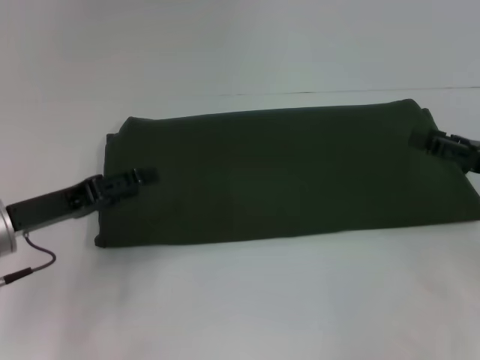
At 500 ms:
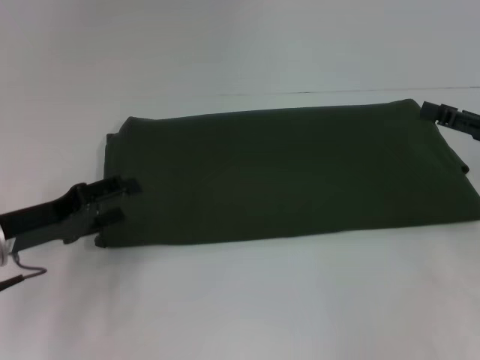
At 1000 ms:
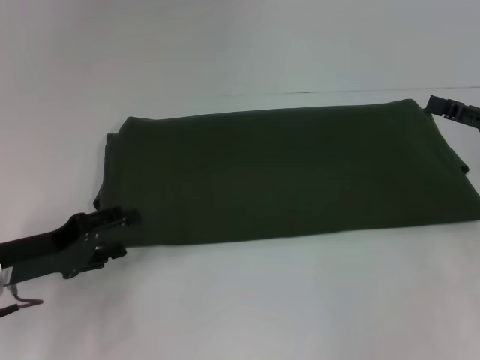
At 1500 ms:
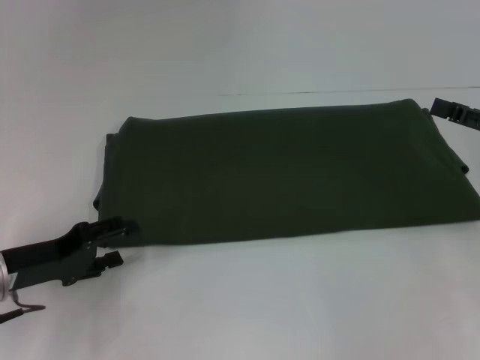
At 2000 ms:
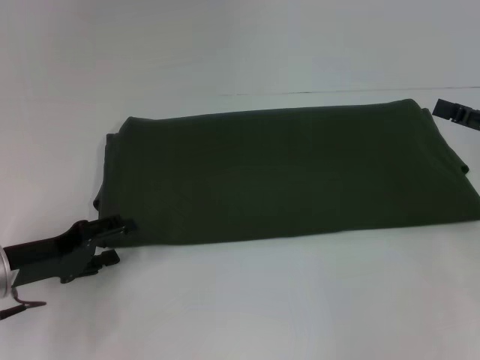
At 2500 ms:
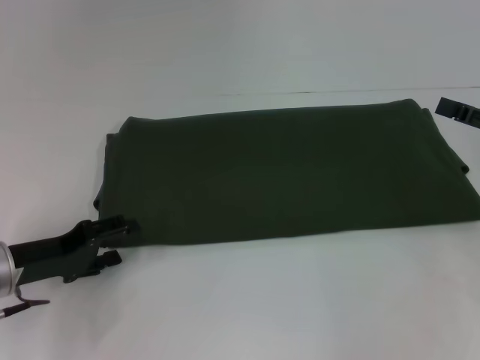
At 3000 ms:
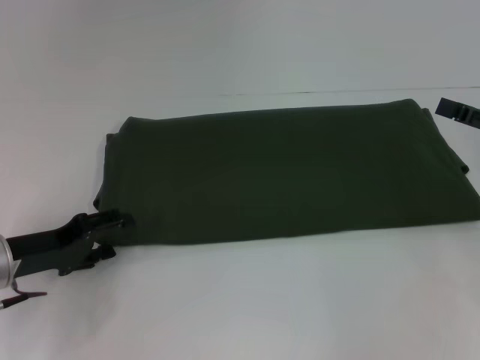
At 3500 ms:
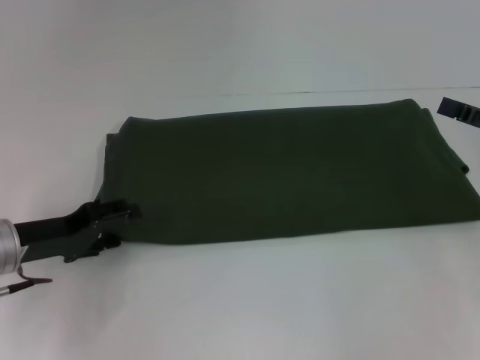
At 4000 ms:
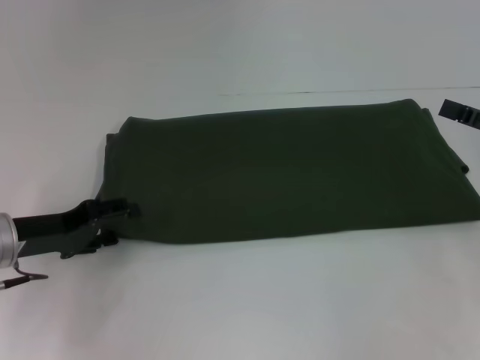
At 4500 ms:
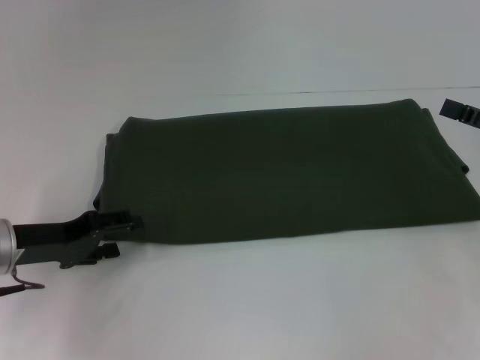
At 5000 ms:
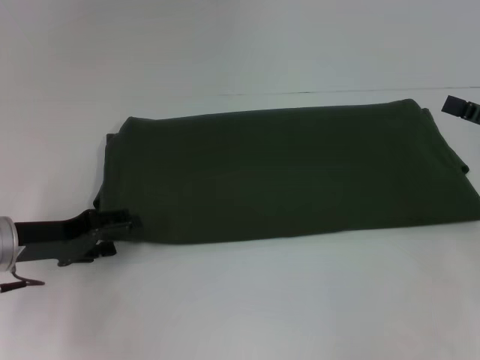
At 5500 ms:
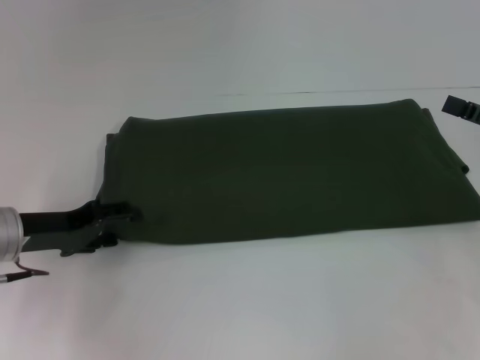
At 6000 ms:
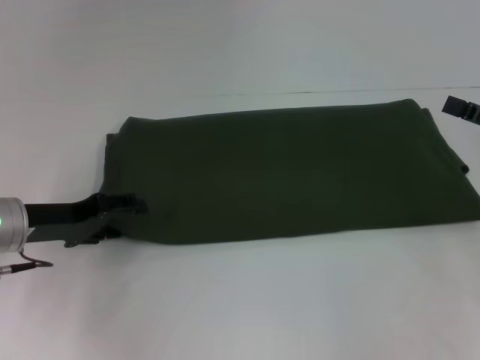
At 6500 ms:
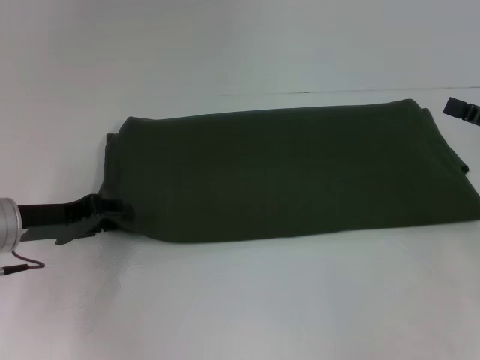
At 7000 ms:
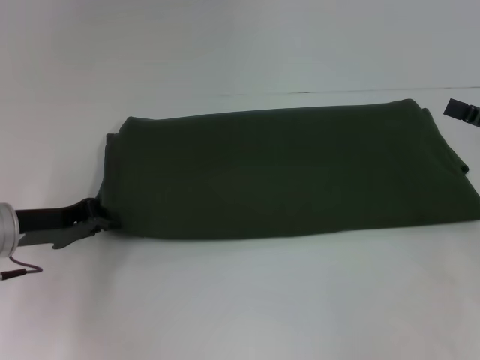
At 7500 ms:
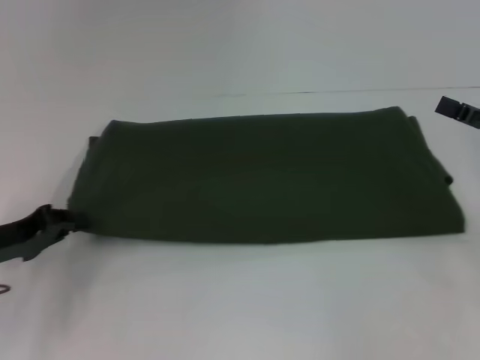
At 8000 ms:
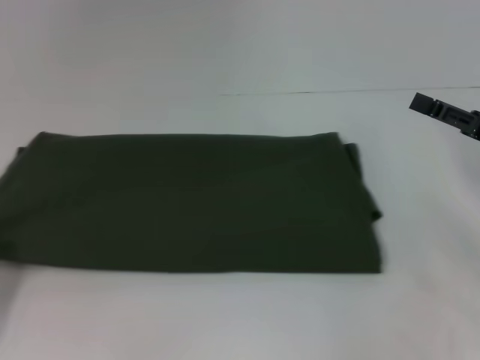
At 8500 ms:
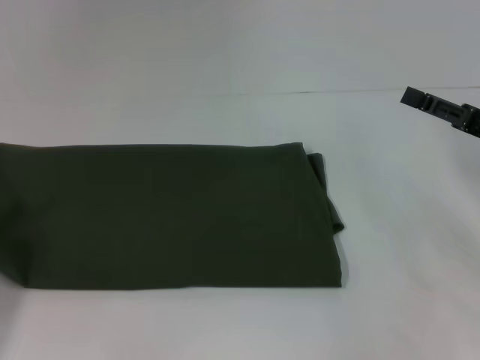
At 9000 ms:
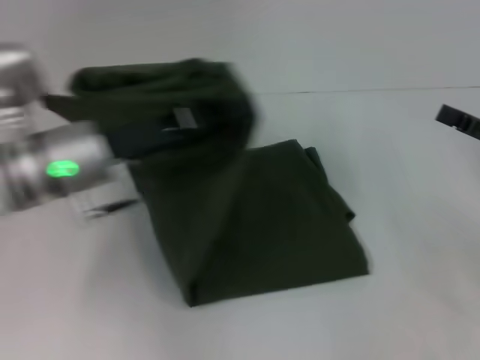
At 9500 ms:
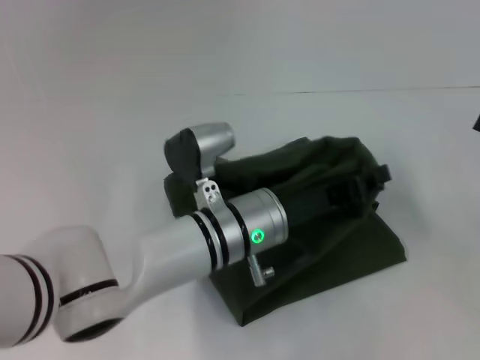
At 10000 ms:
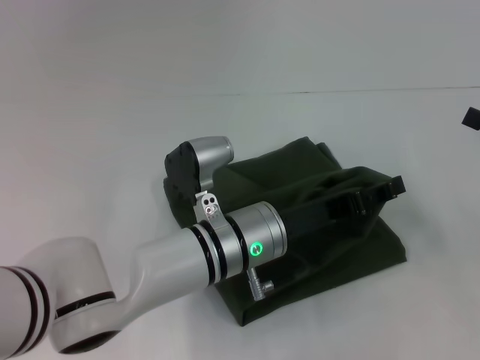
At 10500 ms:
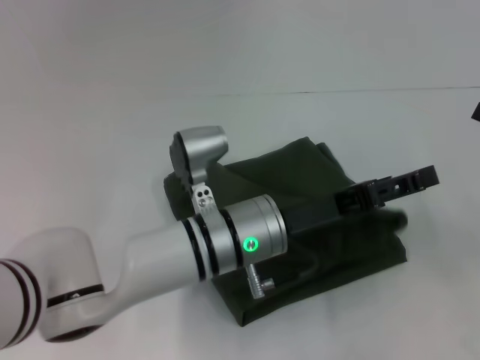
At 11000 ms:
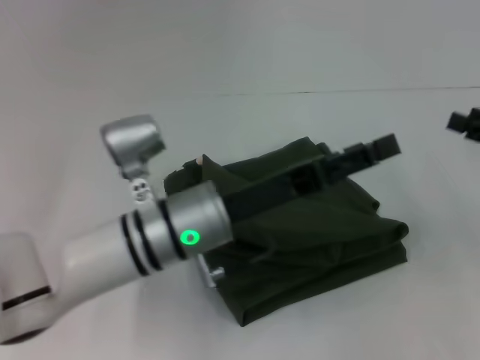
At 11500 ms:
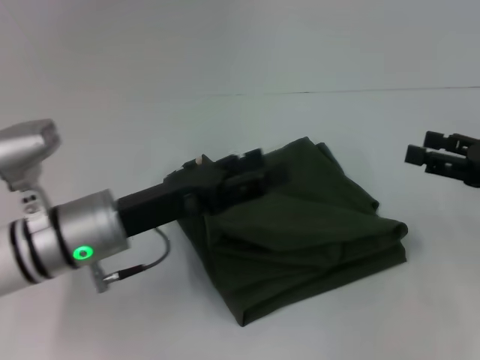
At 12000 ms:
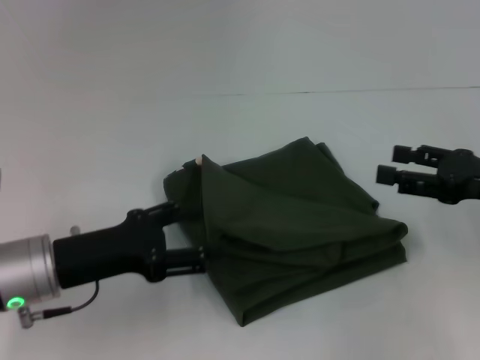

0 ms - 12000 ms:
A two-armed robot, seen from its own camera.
Step, 0 ms - 10500 ms: Fold the clothes with your left hand.
2000 ms - 6000 ms: The grippers make only small movements.
6000 ms - 8000 ms: The left gripper travels to the left and backward by roughly 15 cm, and closes up.
8000 ms - 10000 ms: The left gripper moves to the right, about 35 cm, and opens its fingers. Meanwhile the right gripper moves approximately 5 cm.
10000 ms - 12000 ms: The right gripper goes about 5 cm to the left; the left gripper is displaced to the left by approximately 20 cm, and opens up.

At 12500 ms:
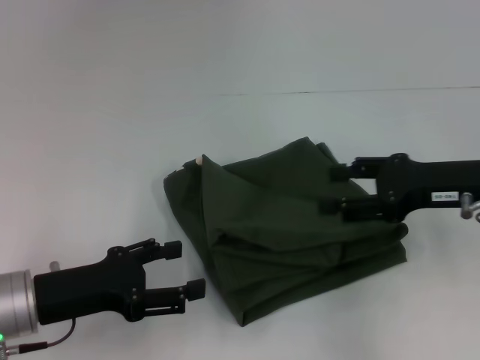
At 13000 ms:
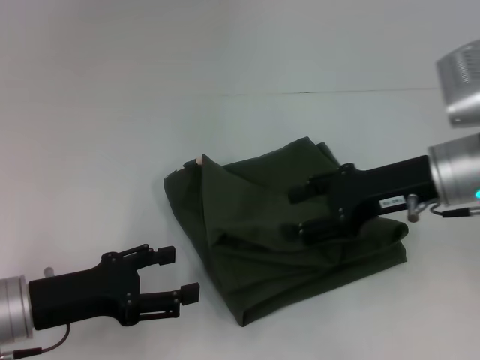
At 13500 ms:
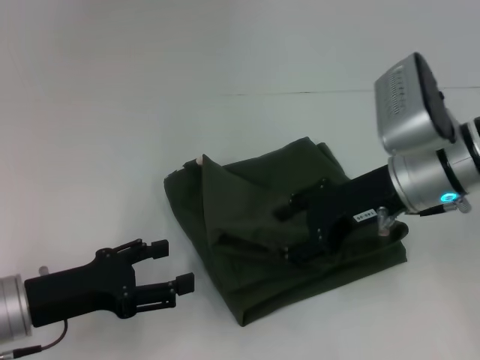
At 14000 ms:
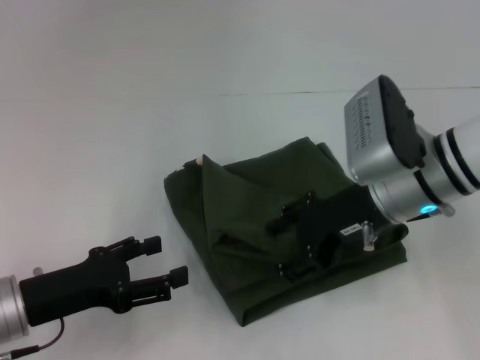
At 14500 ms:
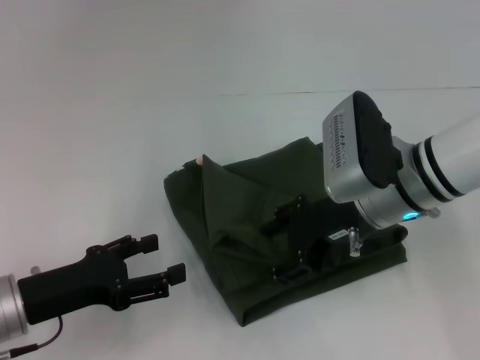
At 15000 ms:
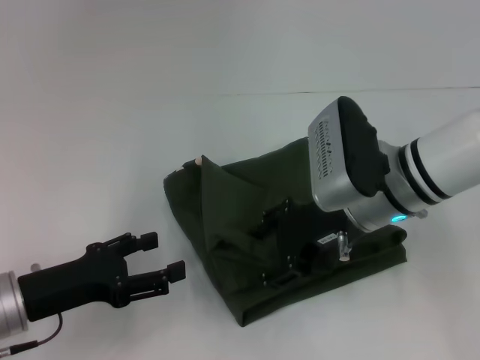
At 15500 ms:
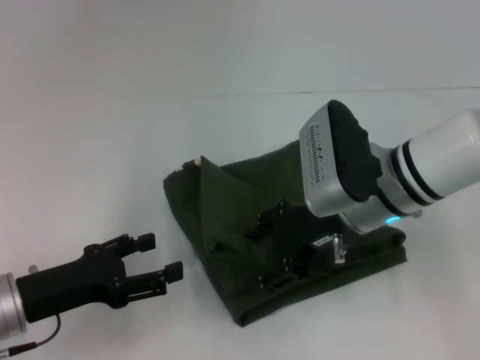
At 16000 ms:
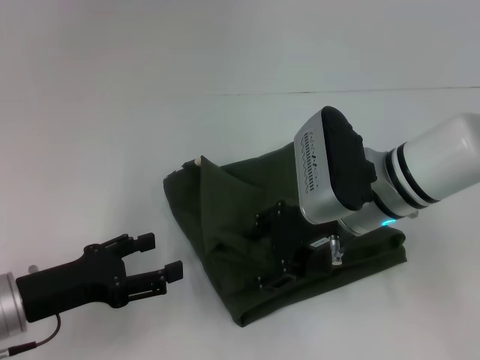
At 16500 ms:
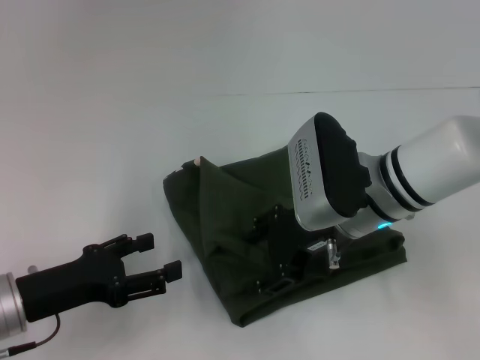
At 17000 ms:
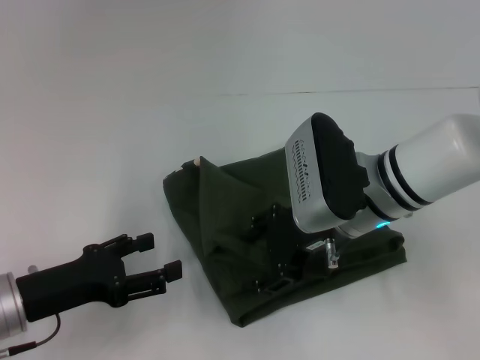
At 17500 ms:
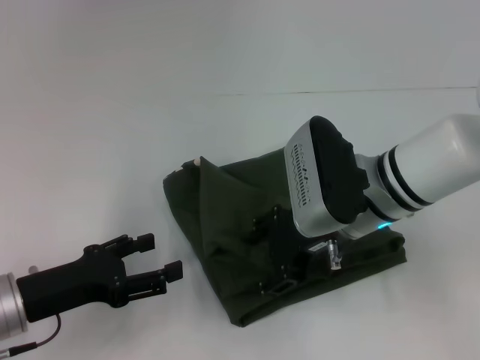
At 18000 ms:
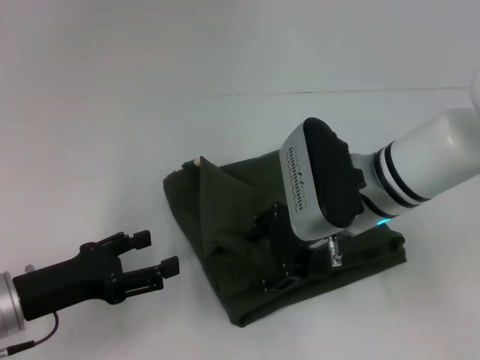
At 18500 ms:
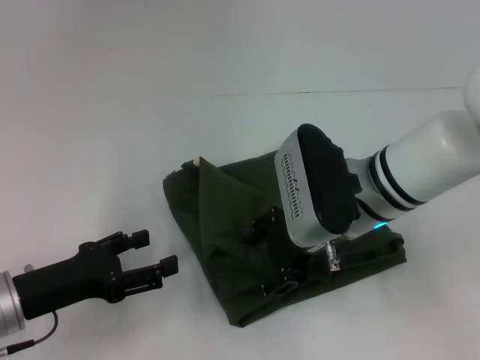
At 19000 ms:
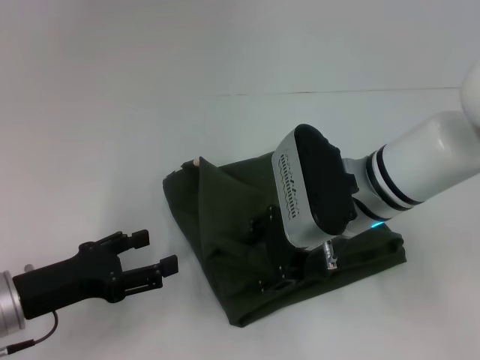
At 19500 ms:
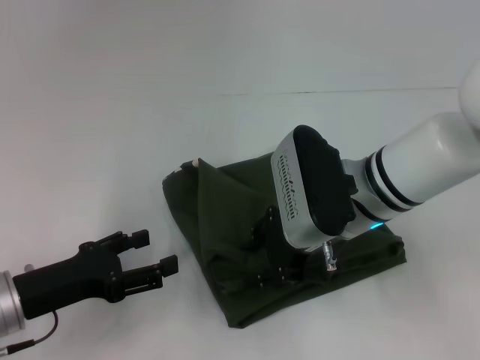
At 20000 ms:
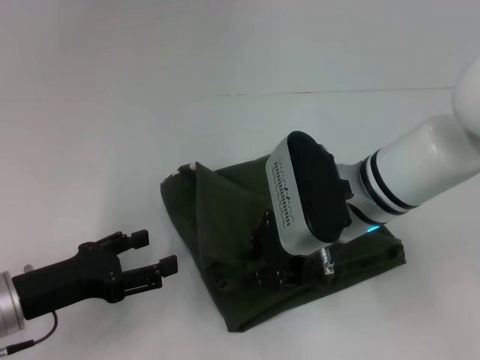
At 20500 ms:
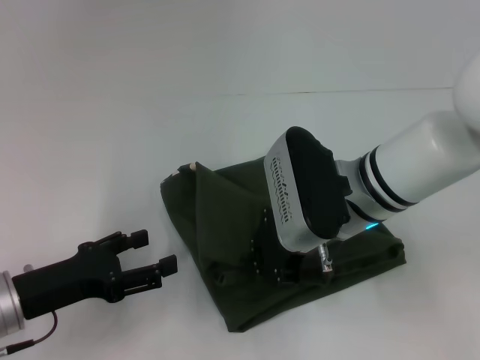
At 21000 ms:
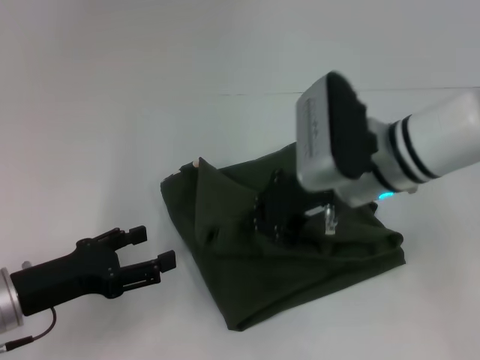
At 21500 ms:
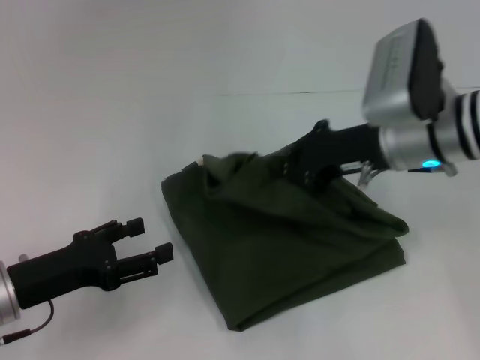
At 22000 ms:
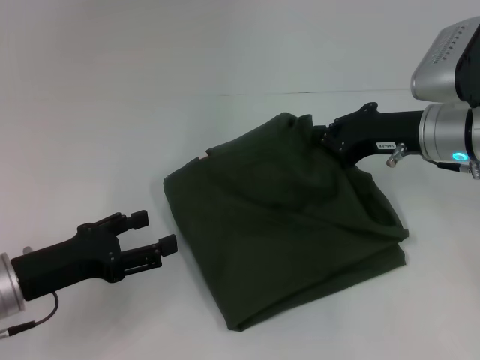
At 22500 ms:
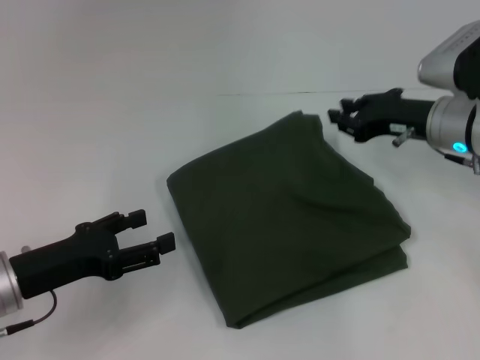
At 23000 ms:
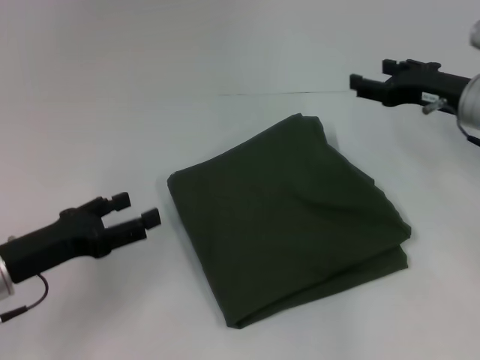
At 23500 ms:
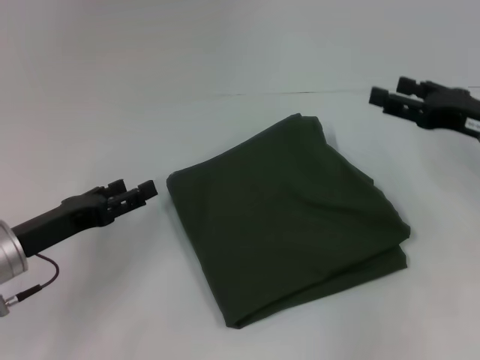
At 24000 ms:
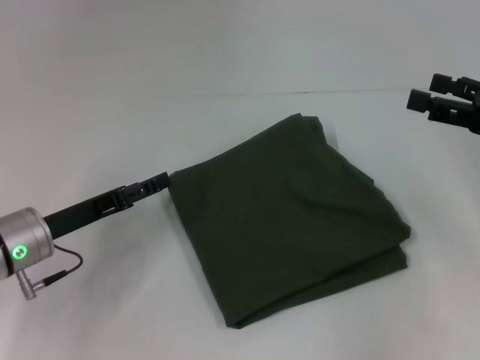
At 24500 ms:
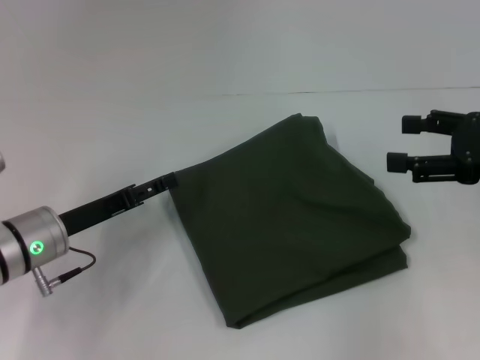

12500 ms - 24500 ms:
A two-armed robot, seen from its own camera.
12500 ms - 14500 ms: The right gripper shifts roughly 10 cm to the left.
14500 ms - 18500 ms: There are only small adjustments of the grippers.
18500 ms - 20500 ms: The right gripper closes up.
20500 ms - 22500 ms: The right gripper is displaced to the right and forward by about 15 cm.
22500 ms - 24500 ms: The left gripper heads forward, covering about 5 cm. The right gripper is displaced to the right and backward by roughly 10 cm, and opens its fingers.

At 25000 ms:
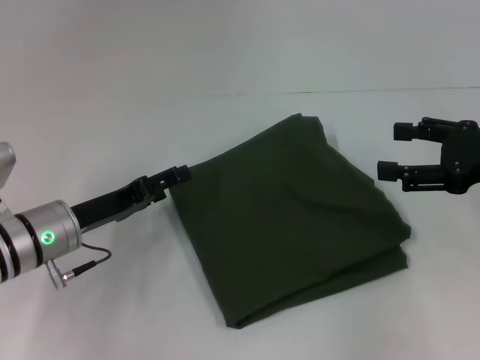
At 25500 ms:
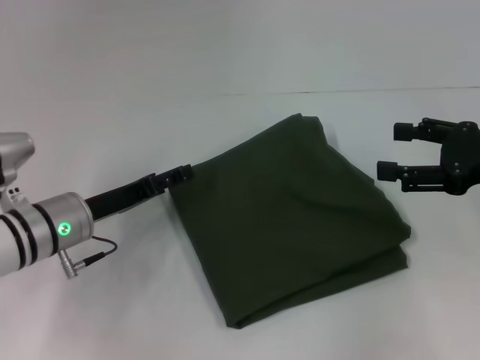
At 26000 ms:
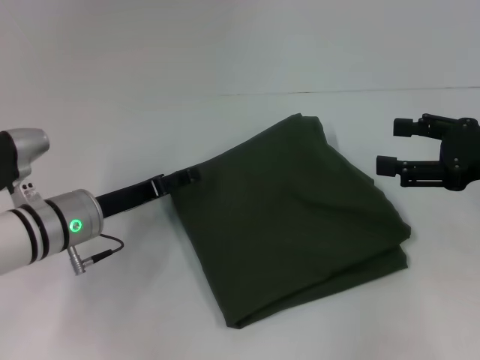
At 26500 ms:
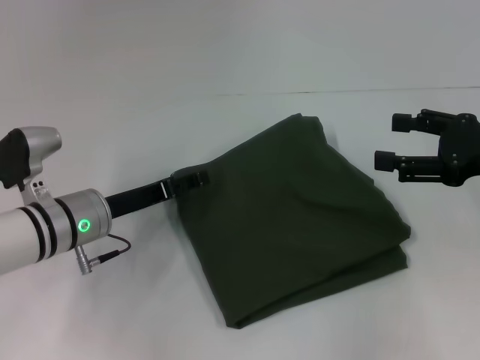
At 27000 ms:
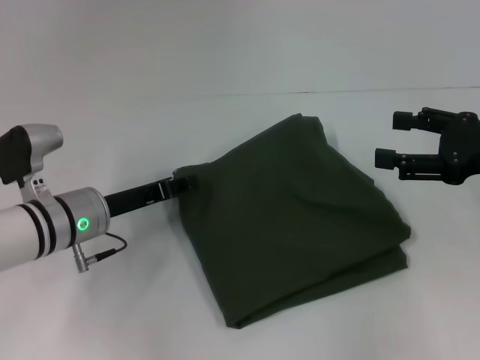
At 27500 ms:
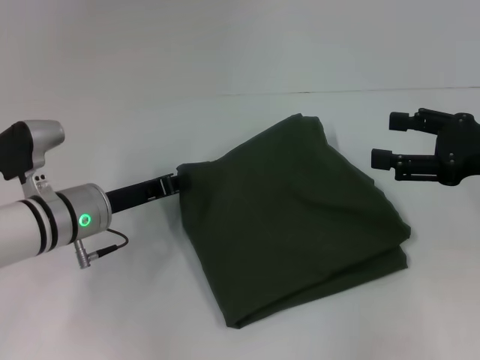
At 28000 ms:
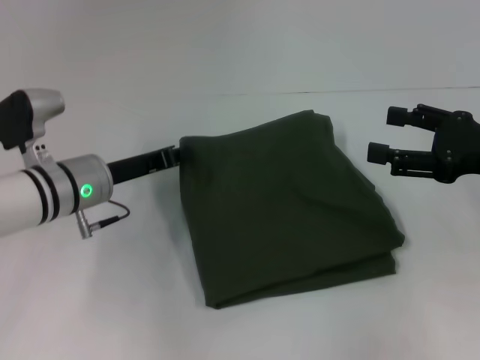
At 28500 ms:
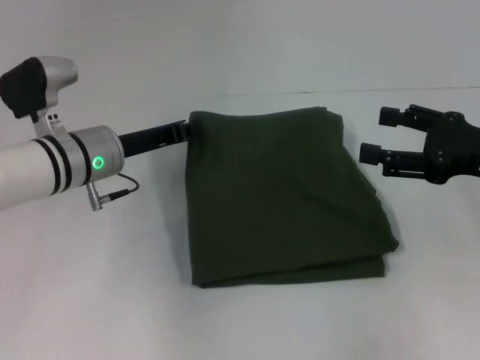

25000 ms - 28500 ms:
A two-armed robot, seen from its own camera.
25000 ms - 27000 ms: The grippers stay close to where they were, moving slightly.
27000 ms - 28500 ms: The left gripper ends up about 5 cm from where it was, and closes.
